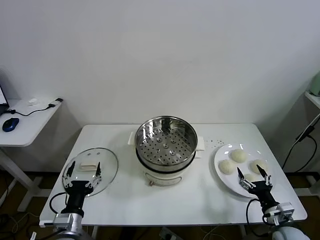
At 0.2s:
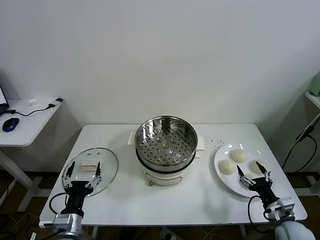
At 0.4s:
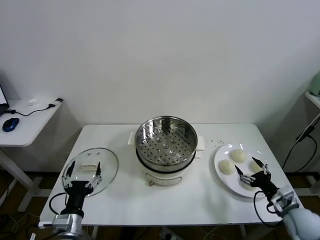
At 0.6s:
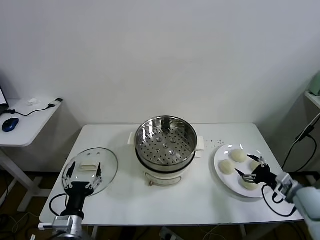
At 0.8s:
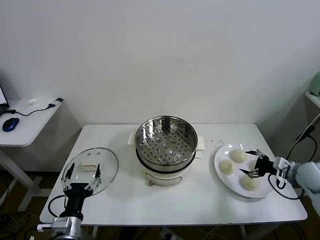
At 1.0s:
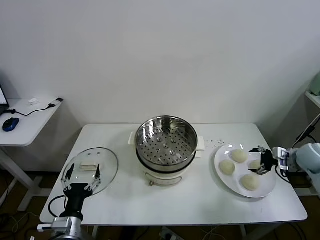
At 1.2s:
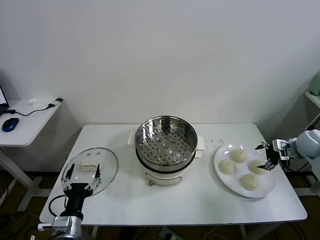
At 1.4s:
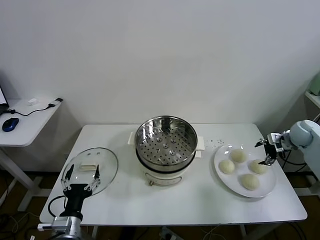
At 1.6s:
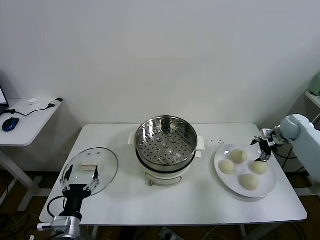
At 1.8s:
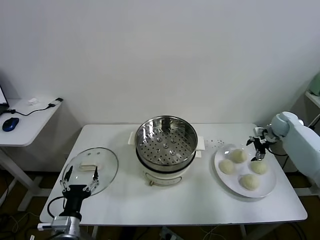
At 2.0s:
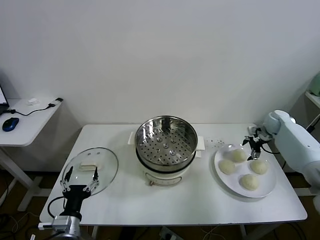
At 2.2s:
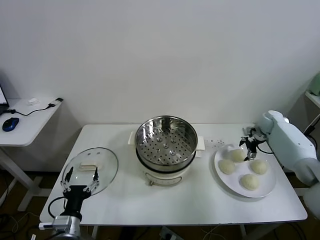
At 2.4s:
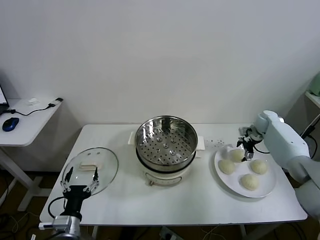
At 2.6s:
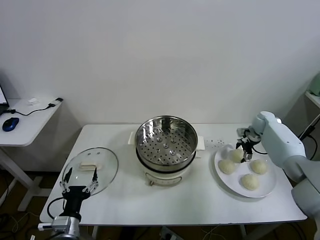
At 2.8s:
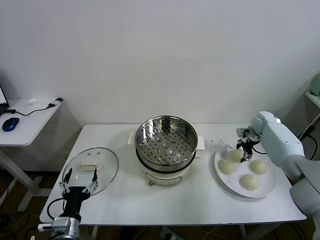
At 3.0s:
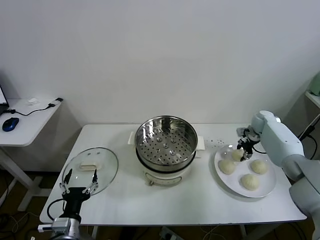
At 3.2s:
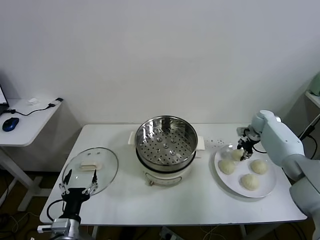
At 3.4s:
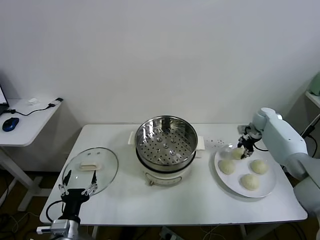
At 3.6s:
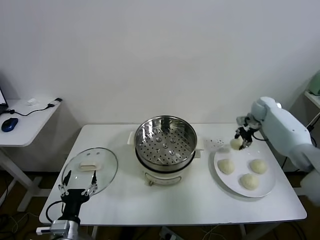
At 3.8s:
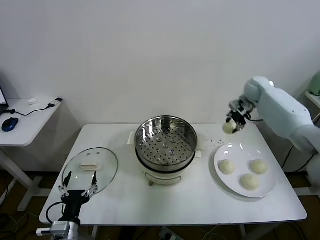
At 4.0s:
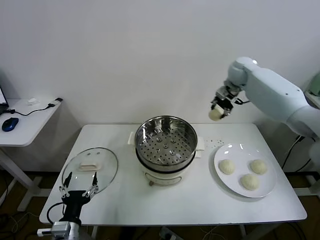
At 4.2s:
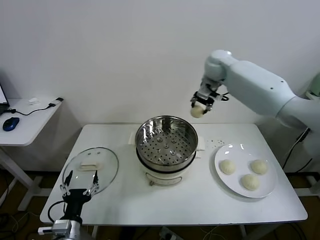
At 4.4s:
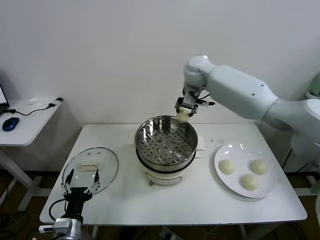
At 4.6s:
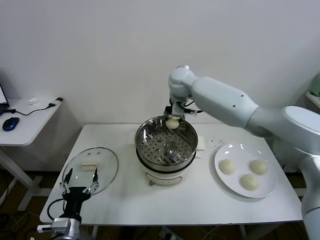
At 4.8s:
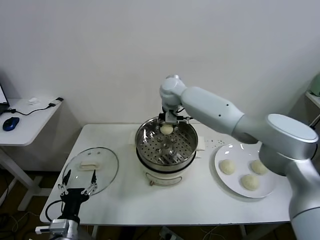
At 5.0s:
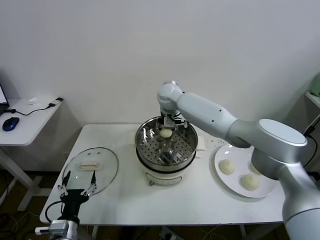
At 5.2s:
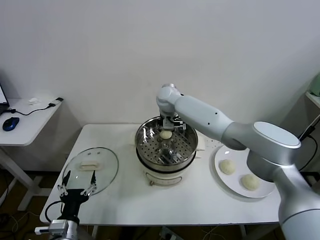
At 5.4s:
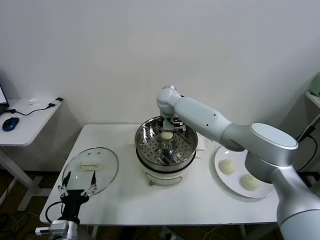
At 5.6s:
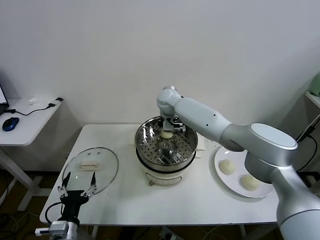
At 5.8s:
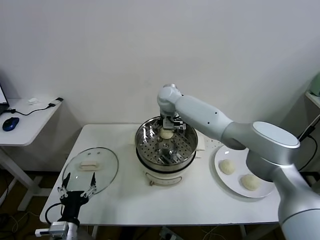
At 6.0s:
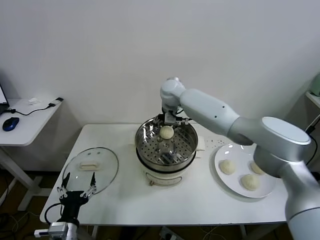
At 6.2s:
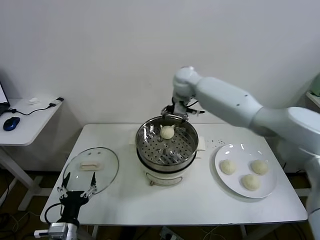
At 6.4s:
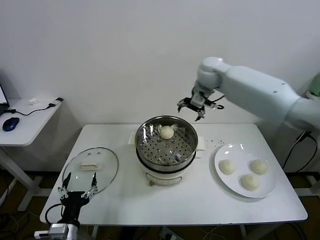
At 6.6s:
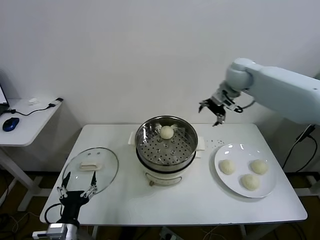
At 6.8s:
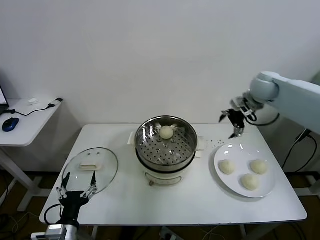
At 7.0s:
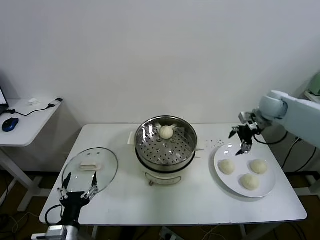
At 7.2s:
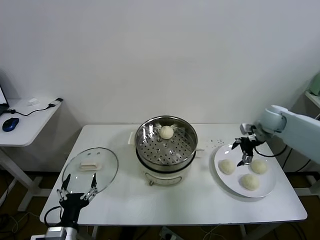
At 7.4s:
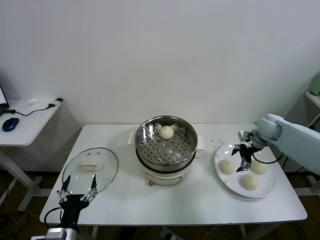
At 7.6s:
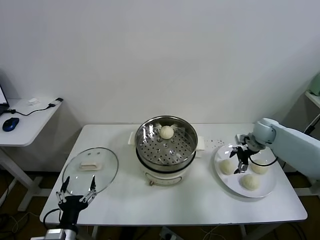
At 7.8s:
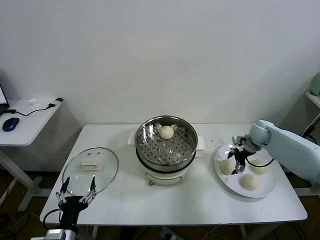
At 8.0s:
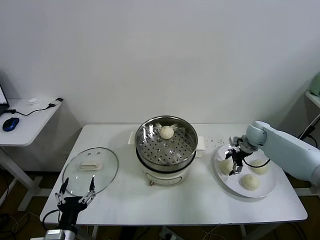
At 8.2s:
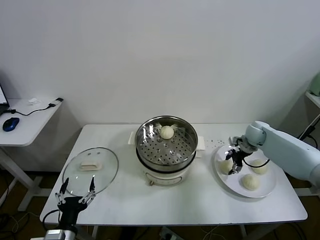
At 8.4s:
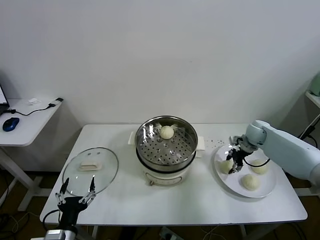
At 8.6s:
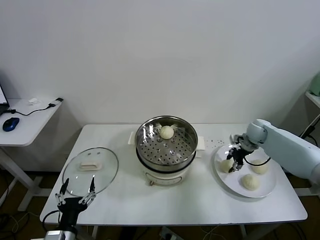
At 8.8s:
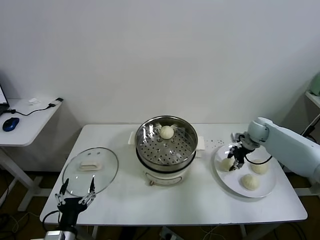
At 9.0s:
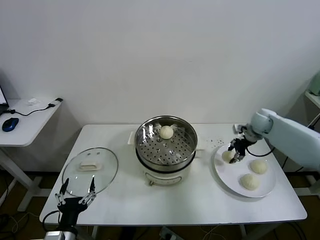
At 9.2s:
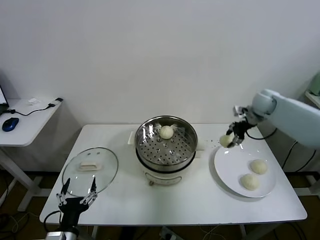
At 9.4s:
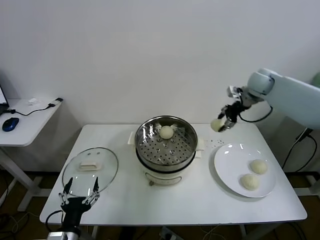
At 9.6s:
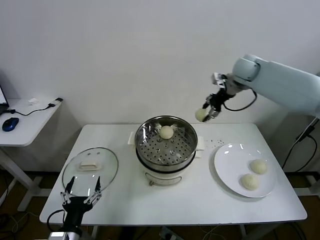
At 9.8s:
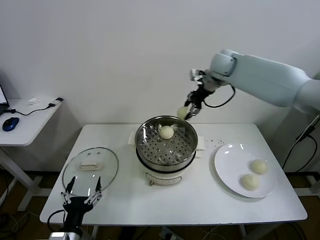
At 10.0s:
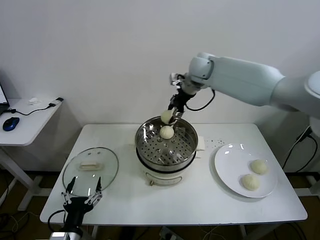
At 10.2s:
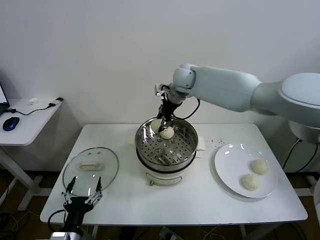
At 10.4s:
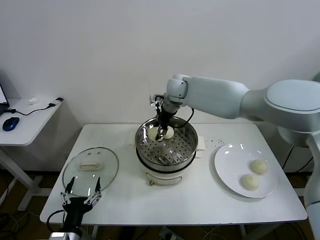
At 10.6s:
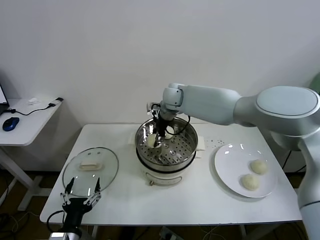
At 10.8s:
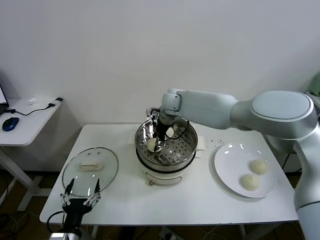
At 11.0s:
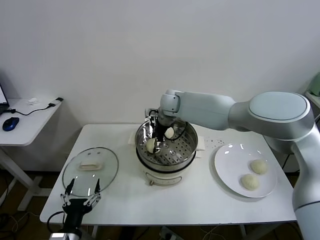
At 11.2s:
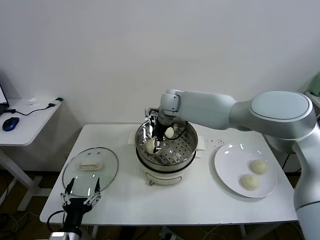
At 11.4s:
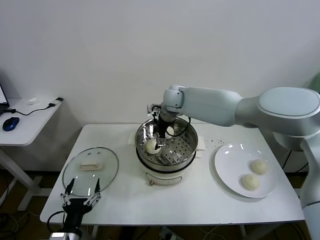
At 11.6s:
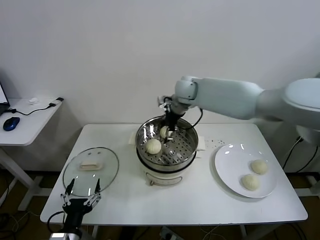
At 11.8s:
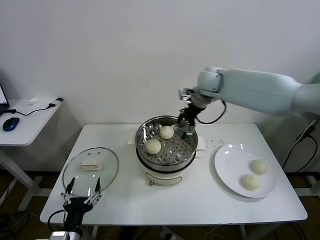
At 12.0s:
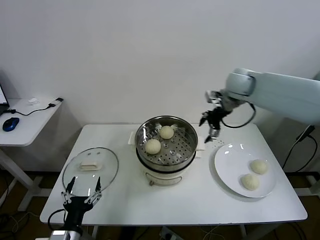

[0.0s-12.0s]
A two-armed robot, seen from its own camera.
Task of the whole recording: take steamed baozi put them in steamer.
Step, 0.0s to 2.8s: Grasp the baozi in the plate with right gripper.
Step, 3.0s to 5.6s: Place the baozi on the steamer with right gripper.
Step, 5.8s to 8.4s: Grasp the baozi in the plate with right gripper.
Step, 8.6s to 11.0s: Place the baozi on the steamer with right gripper.
1.6s to 3.0s: The right gripper travels to the left and forward by roughly 10 cm, and closes its fingers.
3.0s to 4.4s: The right gripper shifts about 40 cm to the left and upward.
4.4s to 6.0s: The right gripper opens.
6.0s to 7.6s: The right gripper shifts about 40 cm to the right and downward.
7.6s to 9.0s: The right gripper goes about 5 cm upward, and closes.
9.0s to 10.4s: The right gripper travels to the left by approximately 35 cm.
10.4s to 12.0s: The right gripper moves to the right, about 25 cm, and opens.

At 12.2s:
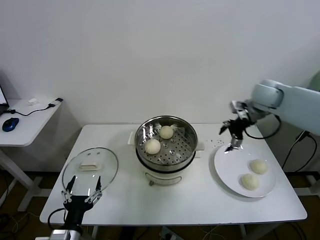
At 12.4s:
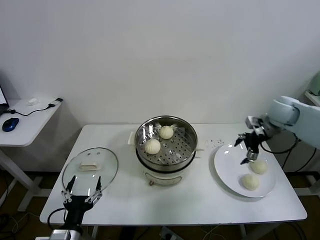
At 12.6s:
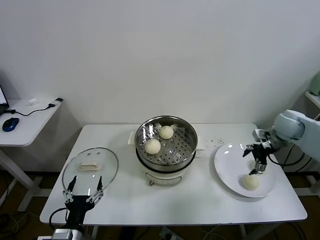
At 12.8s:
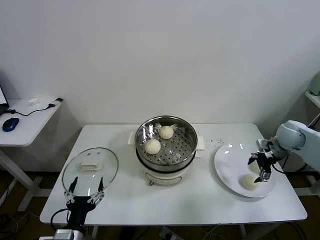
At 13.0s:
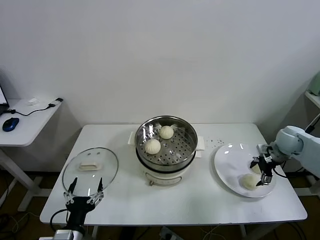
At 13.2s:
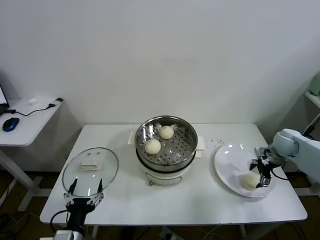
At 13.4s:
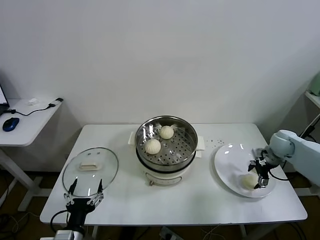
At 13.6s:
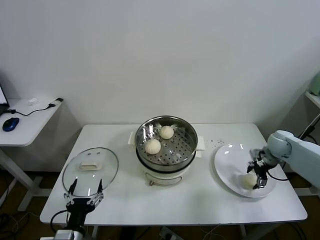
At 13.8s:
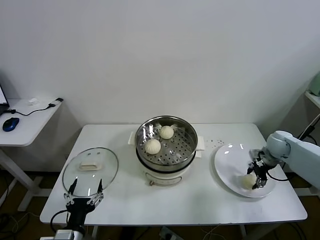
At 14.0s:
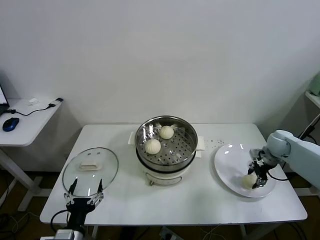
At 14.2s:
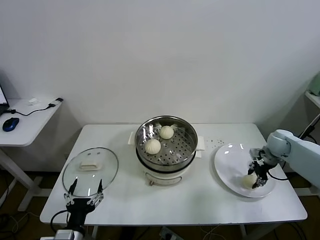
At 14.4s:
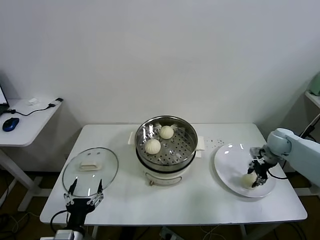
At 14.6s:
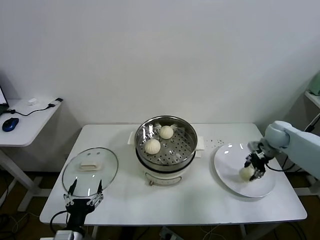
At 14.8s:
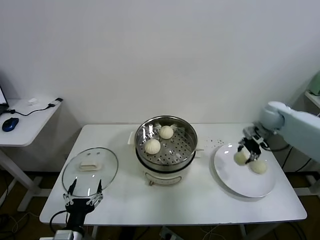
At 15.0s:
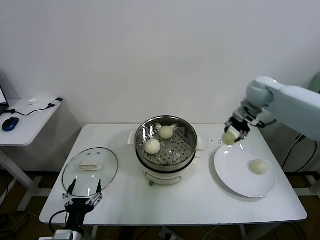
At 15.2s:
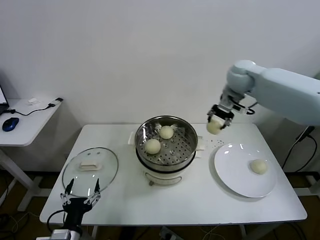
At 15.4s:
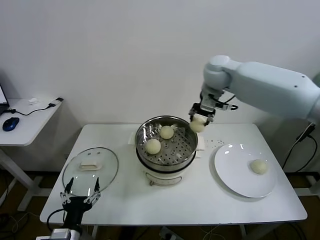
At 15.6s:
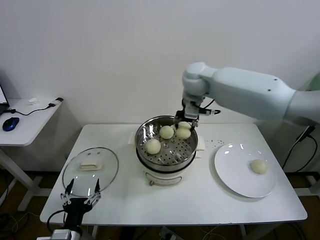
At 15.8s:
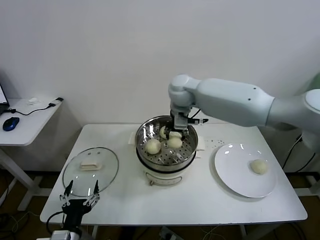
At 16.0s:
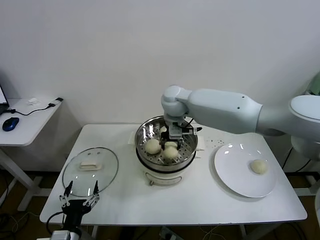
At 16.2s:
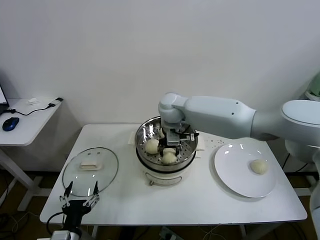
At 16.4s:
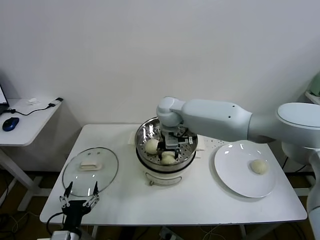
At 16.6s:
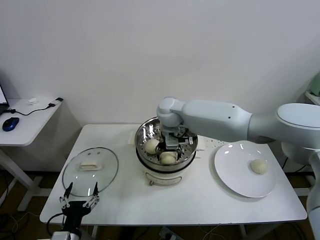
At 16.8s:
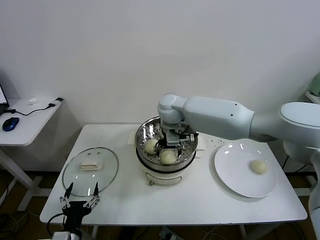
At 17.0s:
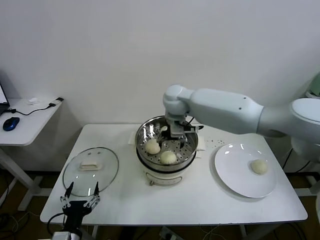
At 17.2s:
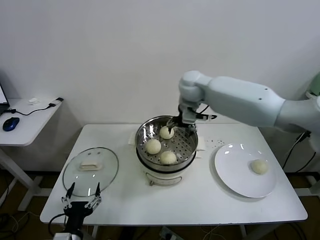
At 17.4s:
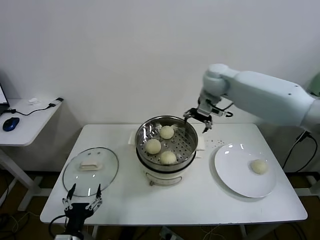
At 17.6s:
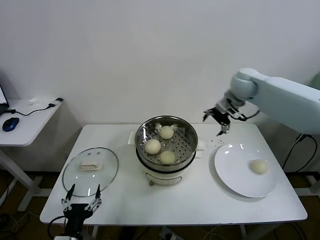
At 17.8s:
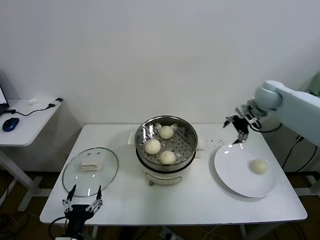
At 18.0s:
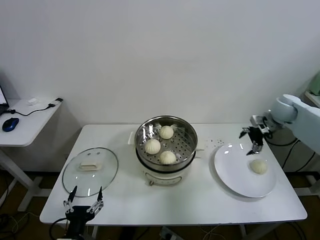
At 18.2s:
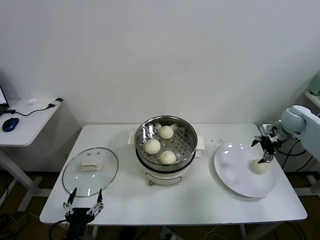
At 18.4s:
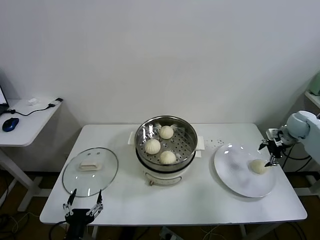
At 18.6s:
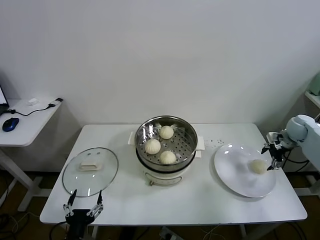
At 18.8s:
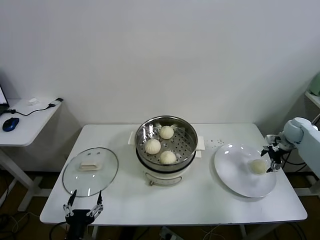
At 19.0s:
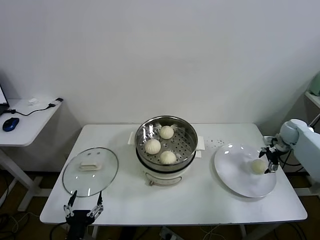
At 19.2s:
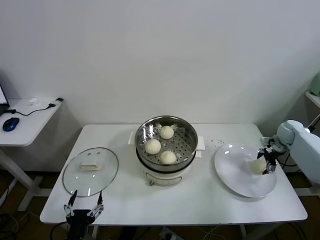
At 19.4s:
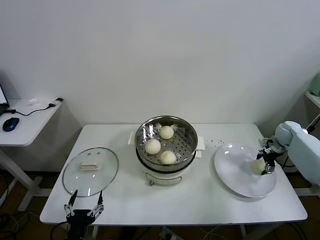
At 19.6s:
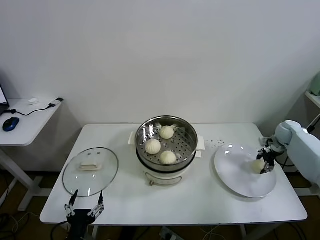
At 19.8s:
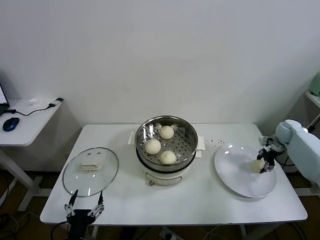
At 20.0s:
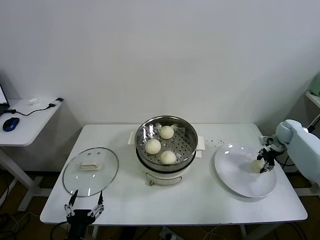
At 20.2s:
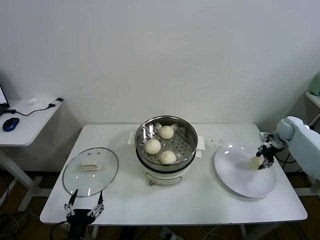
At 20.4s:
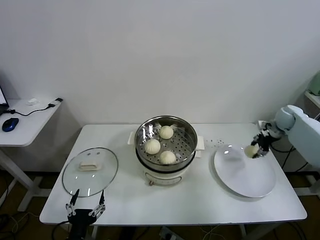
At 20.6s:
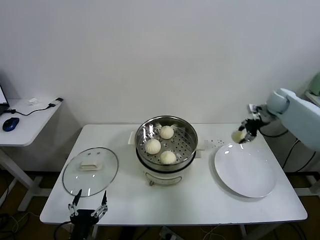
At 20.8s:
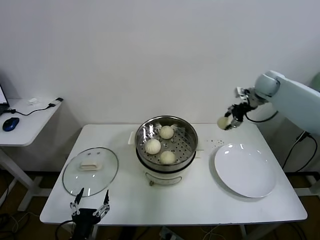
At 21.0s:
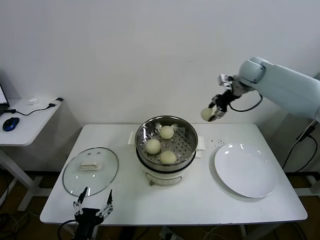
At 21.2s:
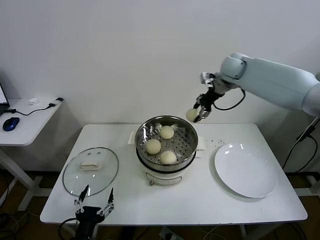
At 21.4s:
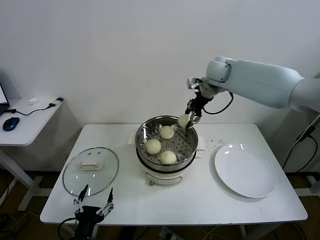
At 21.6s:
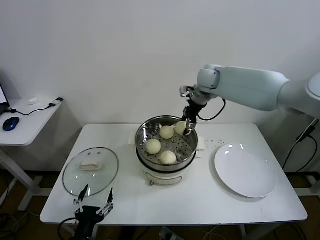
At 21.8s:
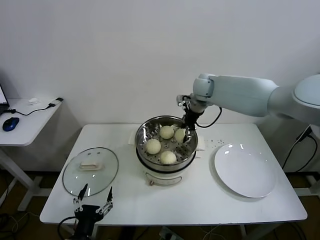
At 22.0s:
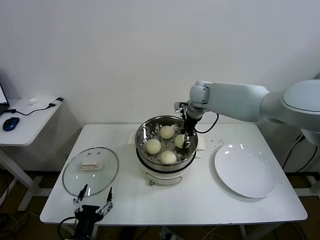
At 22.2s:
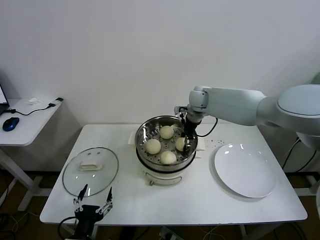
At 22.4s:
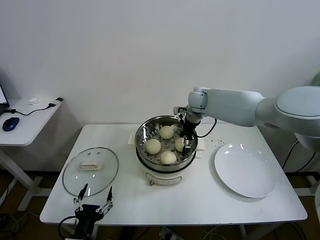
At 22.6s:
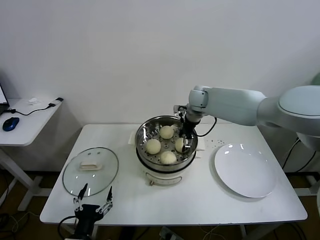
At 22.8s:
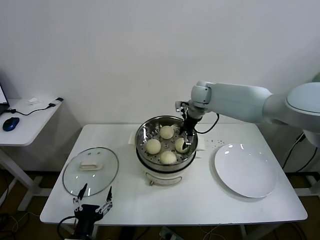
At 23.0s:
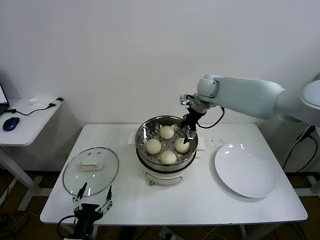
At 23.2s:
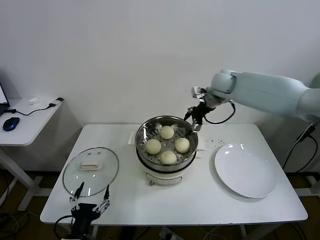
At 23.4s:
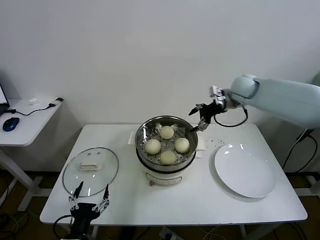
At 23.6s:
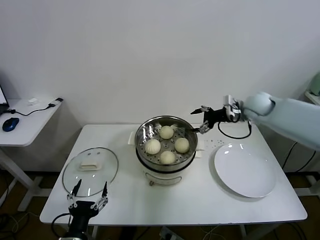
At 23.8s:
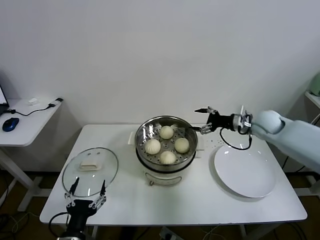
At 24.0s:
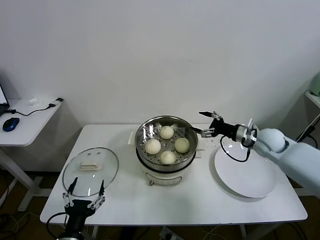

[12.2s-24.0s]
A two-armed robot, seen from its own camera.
Task of the whole recording: take steamed baozi put them in steamer.
Step, 12.2s to 13.8s: Grasp the baozi in the plate with right gripper.
Step, 14.0s to 16.8s: Place the baozi on the steamer with right gripper.
Step, 17.0s to 19.6s: Grasp the baozi in the plate with right gripper.
Step, 20.0s to 22.6s: Place the baozi on the steamer with right gripper.
12.2s to 13.6s: The right gripper moves downward and to the right, roughly 20 cm.
13.6s to 15.2s: The right gripper shifts approximately 35 cm upward and to the left, and closes up.
15.2s to 16.6s: The right gripper shifts approximately 25 cm to the left and downward, and opens.
16.6s to 18.2s: The right gripper heads to the right, covering some 50 cm.
18.2s to 19.6s: The right gripper travels downward by approximately 10 cm, and closes up.
19.6s to 21.0s: The right gripper heads upward and to the left, covering approximately 30 cm.
21.0s to 22.6s: The right gripper travels to the left and downward by about 20 cm, and opens its fingers.
22.6s to 24.0s: The right gripper travels to the right, backward and downward by roughly 30 cm.
